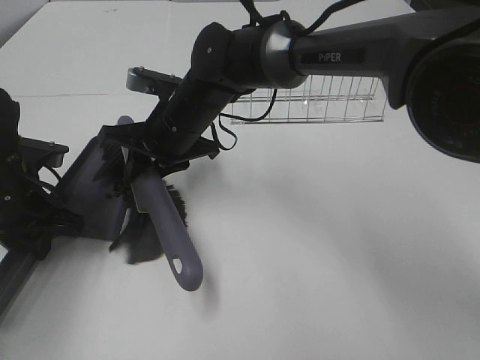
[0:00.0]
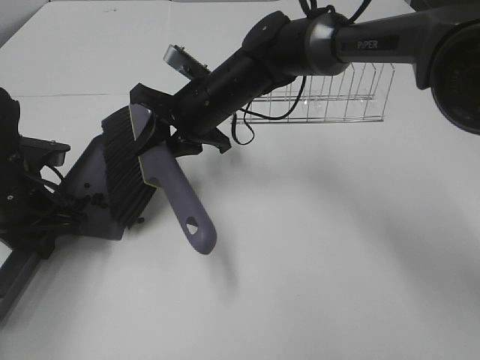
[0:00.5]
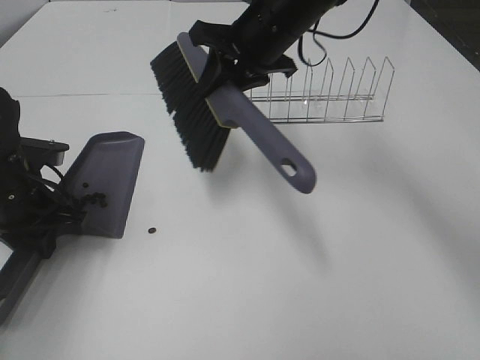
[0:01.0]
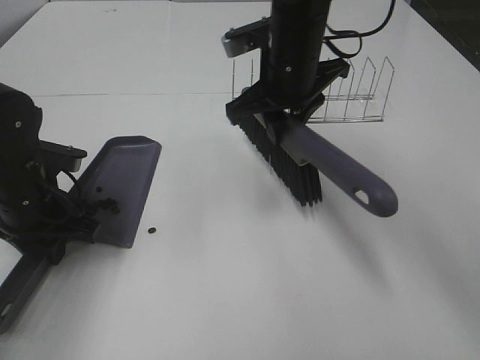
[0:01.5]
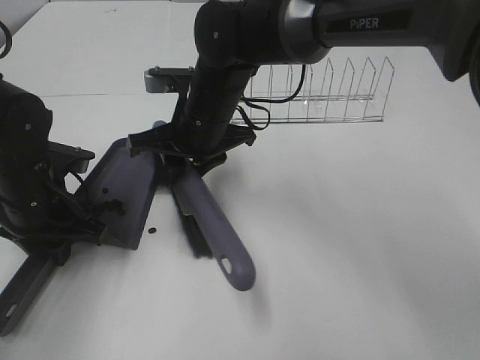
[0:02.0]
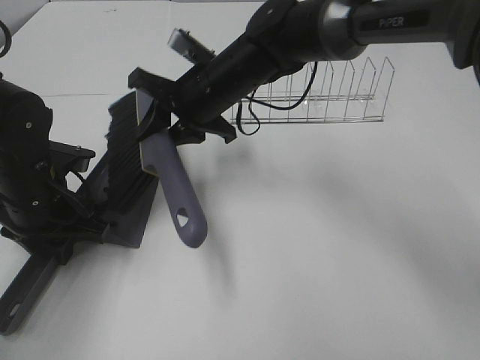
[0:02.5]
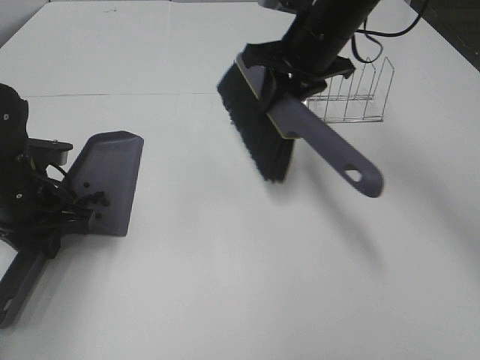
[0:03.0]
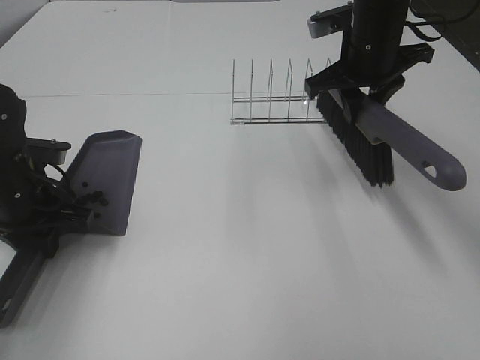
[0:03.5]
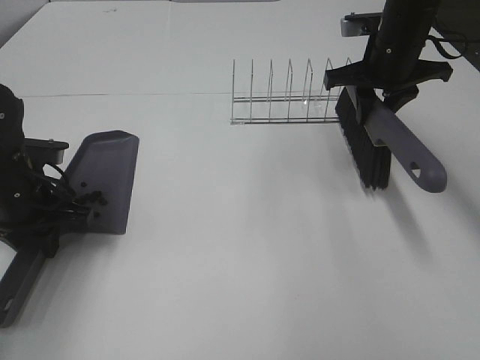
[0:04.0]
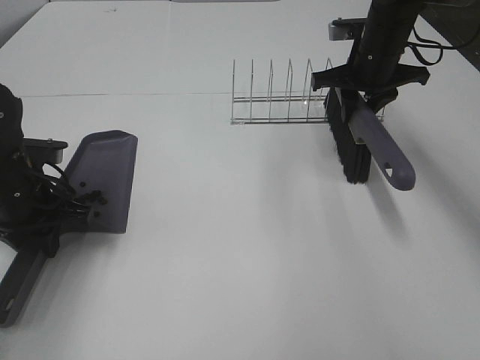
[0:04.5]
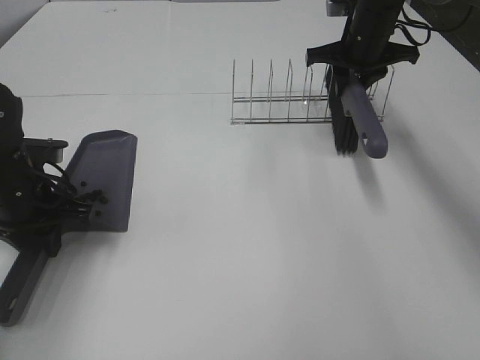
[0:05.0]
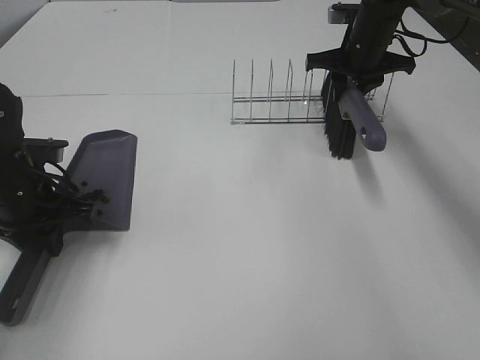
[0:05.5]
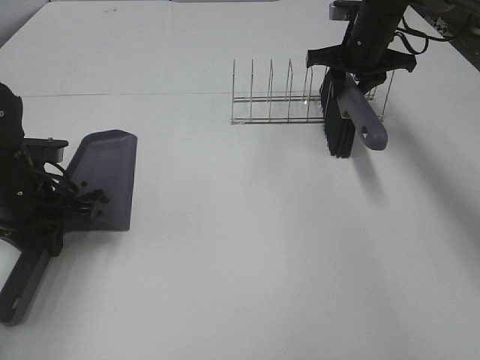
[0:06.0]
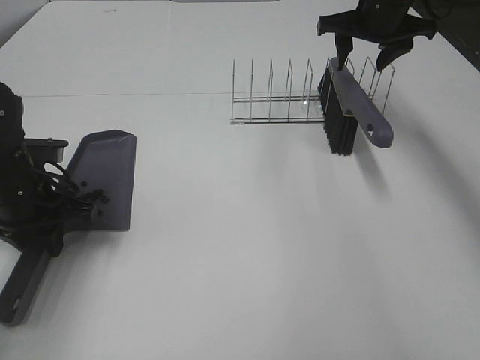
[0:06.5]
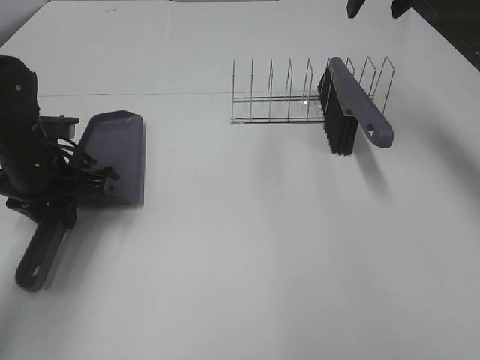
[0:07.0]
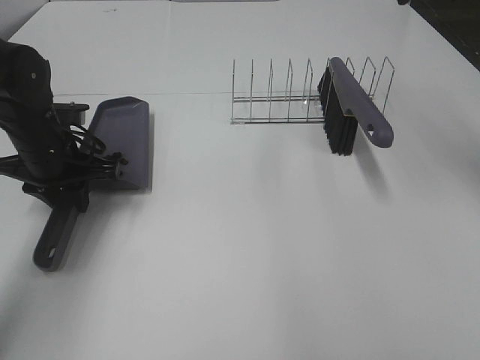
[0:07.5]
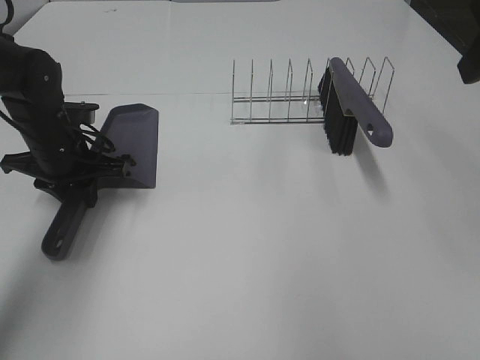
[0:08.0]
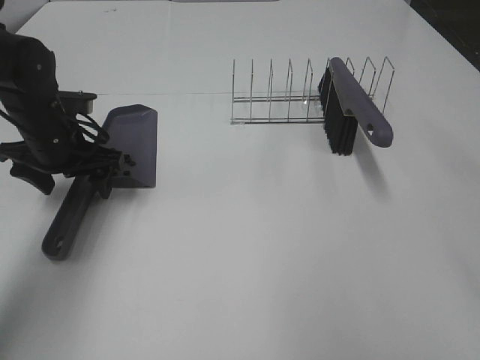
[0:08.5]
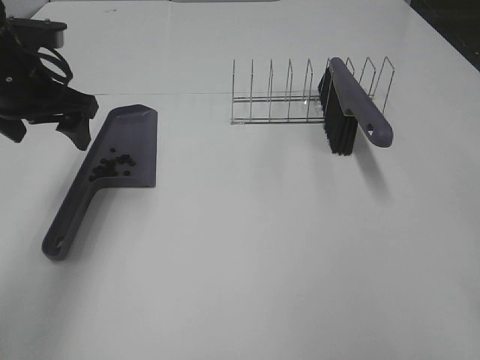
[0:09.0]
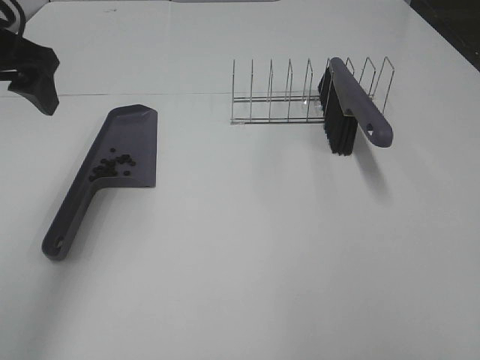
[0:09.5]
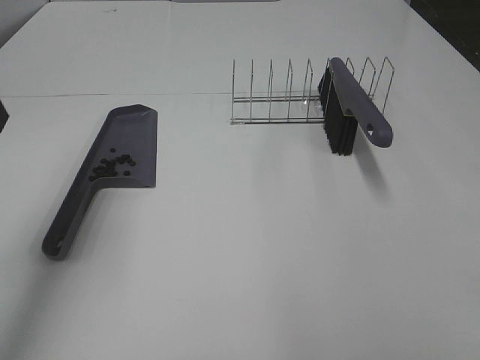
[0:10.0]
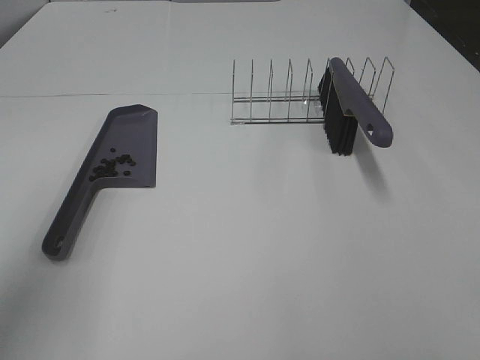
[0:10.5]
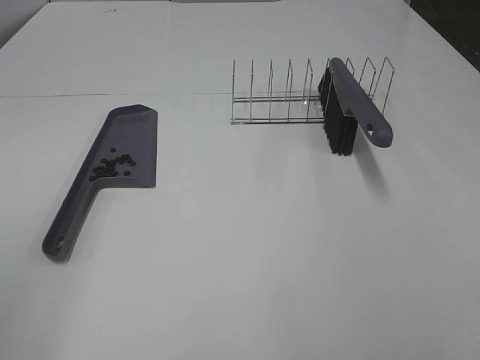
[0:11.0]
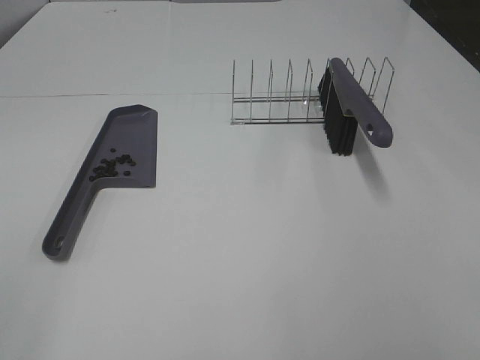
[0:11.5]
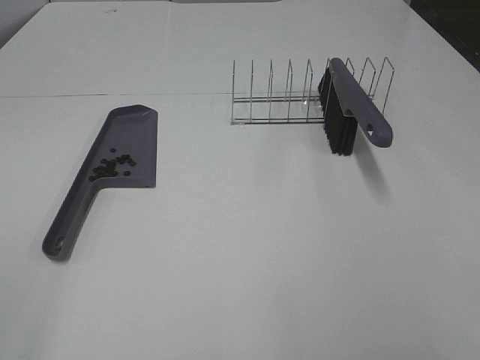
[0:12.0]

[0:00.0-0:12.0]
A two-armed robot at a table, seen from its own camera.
Task of the whole recording: Sweep Coffee Bean.
Step, 0:00.0 to 0:02.0: Right hand:sweep the coffee beans into the dustpan.
Step, 0:02.5 to 0:06.0: Right hand:place the broom on the rack.
Step, 0:06.5 to 0:08.0: Left hand:place the dustpan on the table.
0:00.0 to 0:02.0: The right gripper reaches approximately 10 cm to the right, then returns.
0:02.0 to 0:04.0: The right gripper is displaced to the right by about 25 cm.
0:04.0 to 0:06.0: The right gripper travels forward by approximately 10 cm.
0:06.0 to 0:08.0: The right gripper moves backward and upward, about 35 cm, and opens its fingers. The left gripper goes approximately 10 cm forward.
0:08.0 to 0:10.0: The left gripper travels upward and backward by about 25 cm, and opens its fingers.
0:10.0 to 0:12.0: The left gripper moves backward, some 25 cm.
